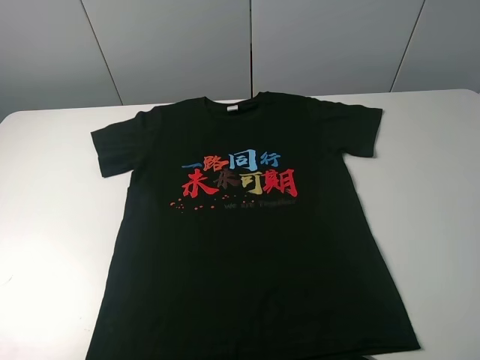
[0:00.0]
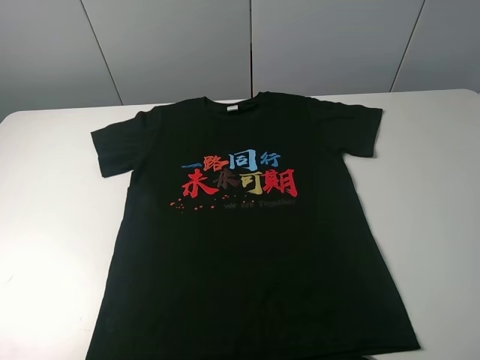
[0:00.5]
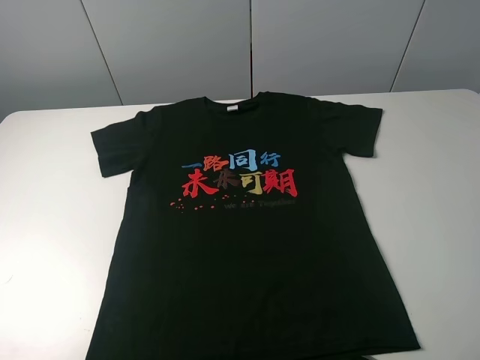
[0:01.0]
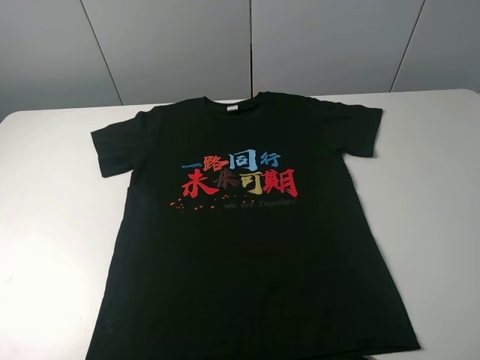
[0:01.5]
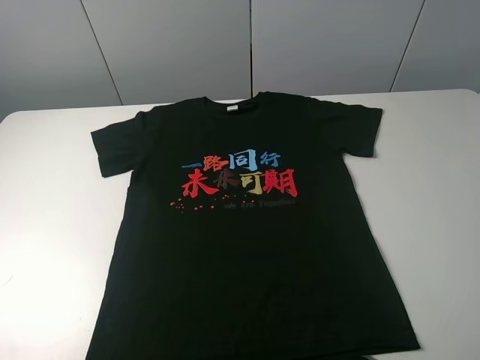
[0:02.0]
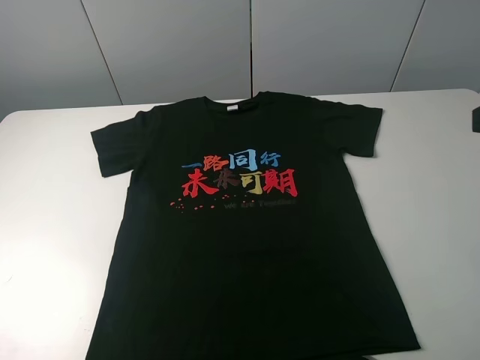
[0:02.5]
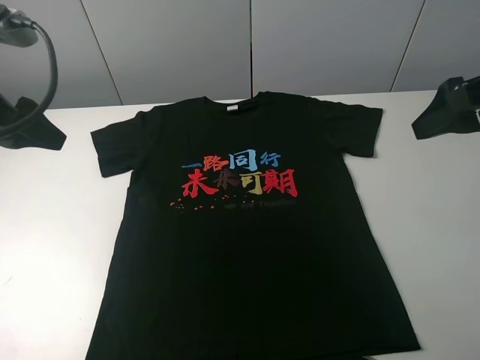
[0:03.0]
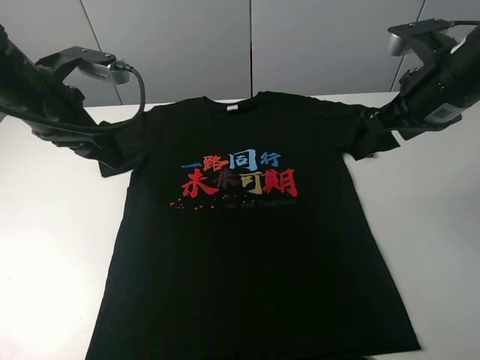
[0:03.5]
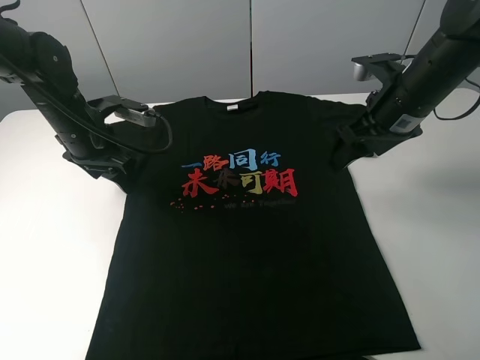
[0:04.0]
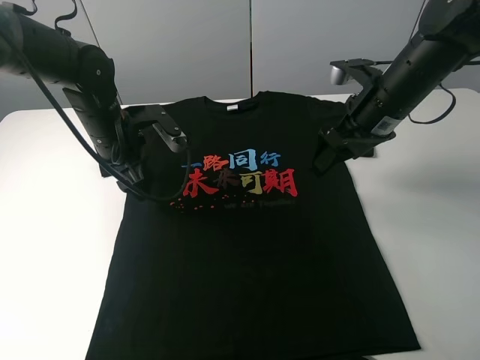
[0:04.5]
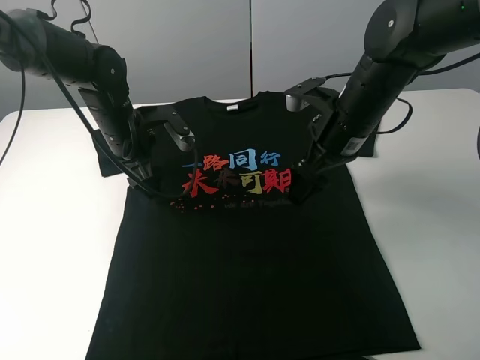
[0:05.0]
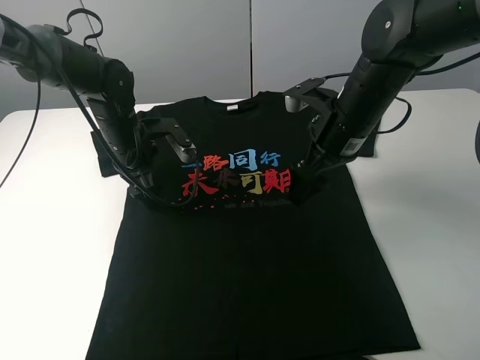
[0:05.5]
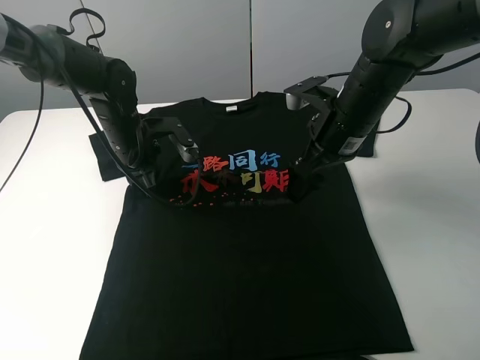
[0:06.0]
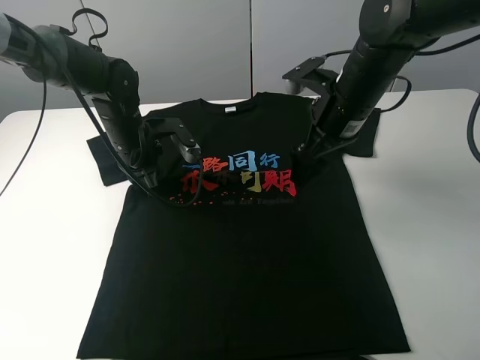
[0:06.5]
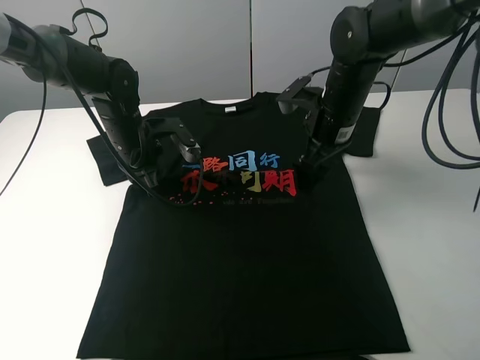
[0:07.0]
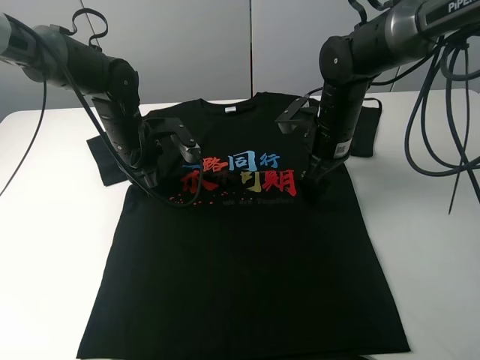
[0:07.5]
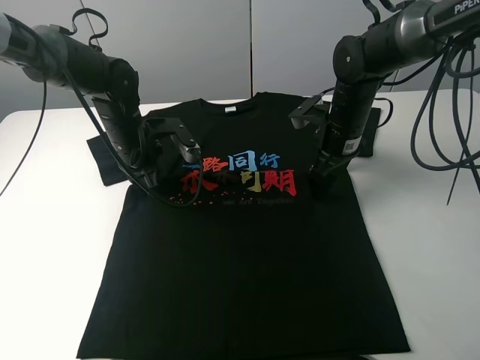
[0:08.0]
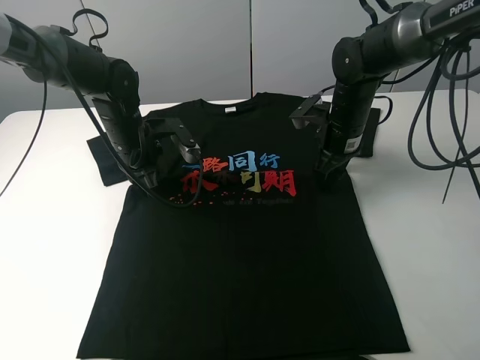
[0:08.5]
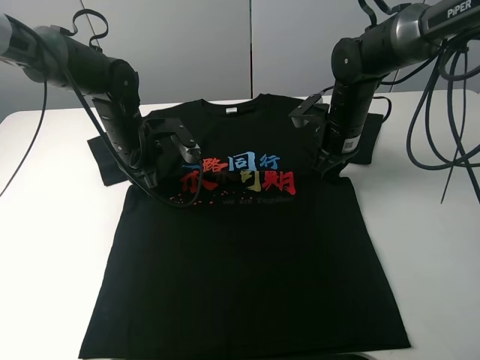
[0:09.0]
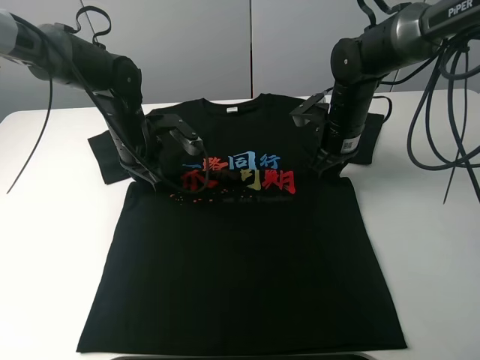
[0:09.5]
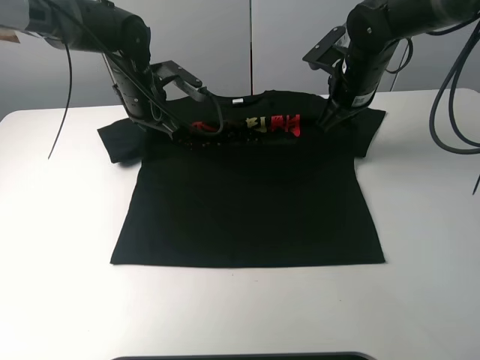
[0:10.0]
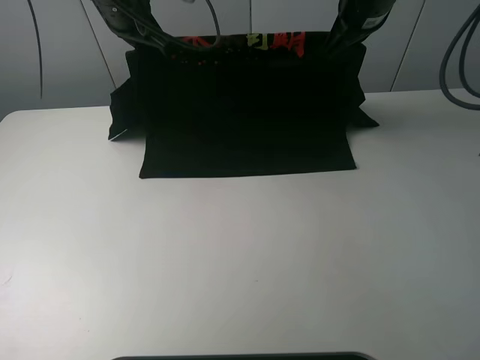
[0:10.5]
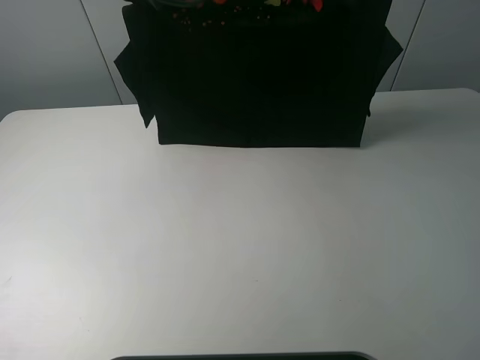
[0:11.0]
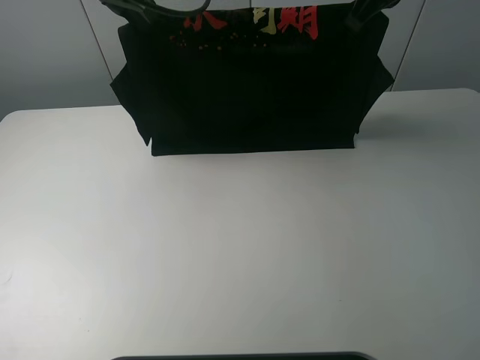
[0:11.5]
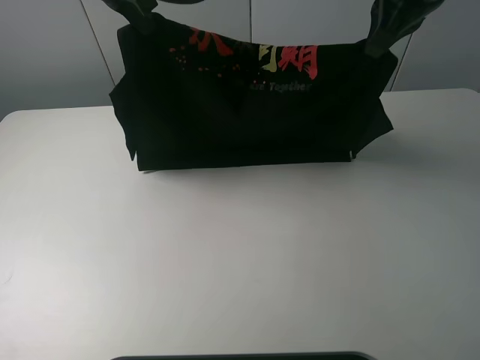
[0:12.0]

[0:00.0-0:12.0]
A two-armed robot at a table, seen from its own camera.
Task of the whole recording: fold the clothes on the table.
Step, 0.0 to 6.5 s: Lift the black T-shirt with the left gripper.
2.0 to 4.0 s: The right gripper goes roughly 30 cm forward, while the left gripper goes approximately 40 cm forward, downward and to the right.
4.0 to 6.0 s: The right gripper heads to the left, covering roughly 5 cm, while the left gripper goes roughly 5 cm to the right, and closes up.
6.0 to 8.0 s: The right gripper heads forward and downward, covering approximately 10 cm.
8.0 to 10.0 s: The left gripper travels forward and upward by some 10 cm, while the right gripper shifts some 5 cm upward, and closes its fingers.
10.0 to 12.0 s: The left gripper heads upward, covering some 20 cm. Meanwhile the right gripper heads upward and backward, covering roughly 20 cm.

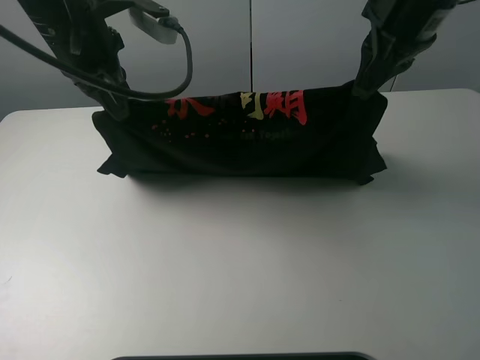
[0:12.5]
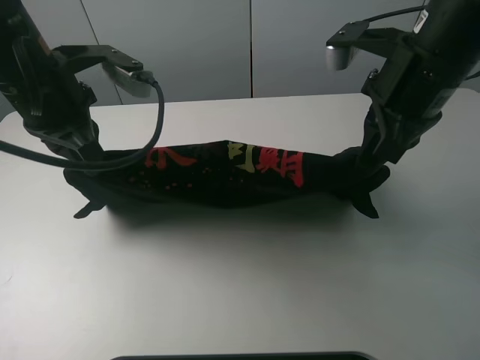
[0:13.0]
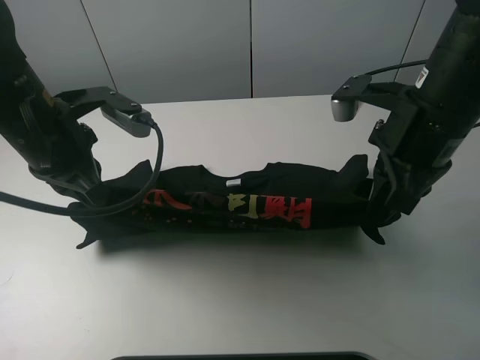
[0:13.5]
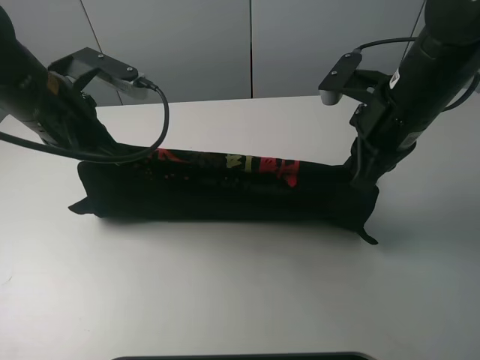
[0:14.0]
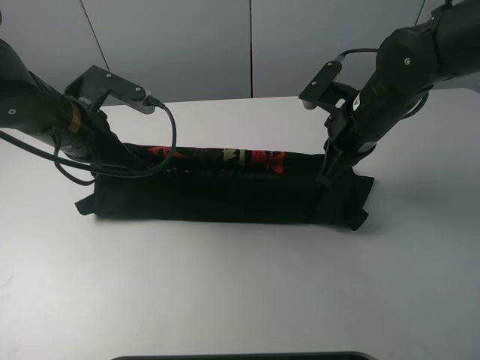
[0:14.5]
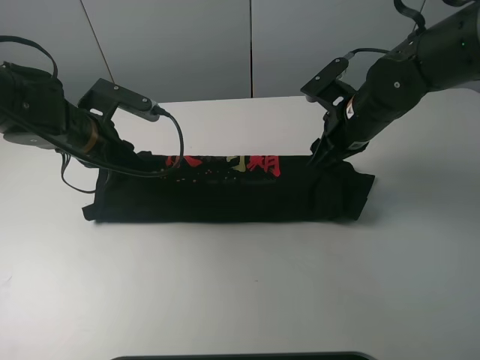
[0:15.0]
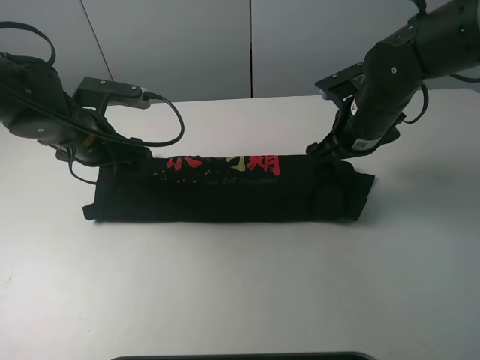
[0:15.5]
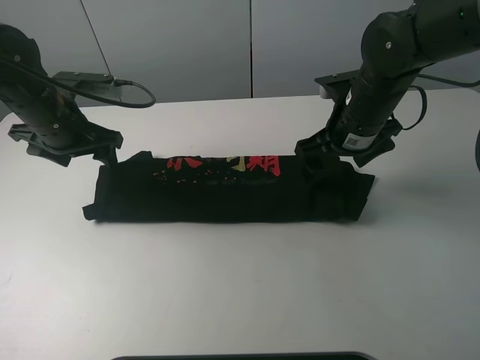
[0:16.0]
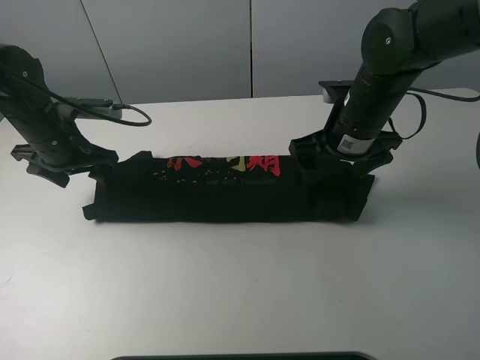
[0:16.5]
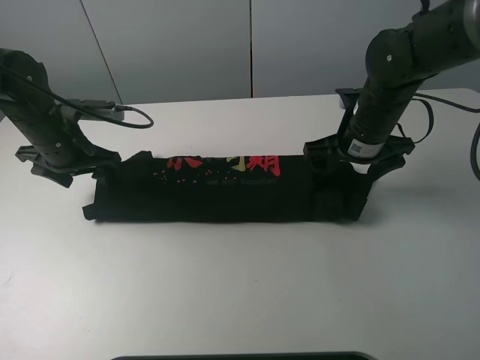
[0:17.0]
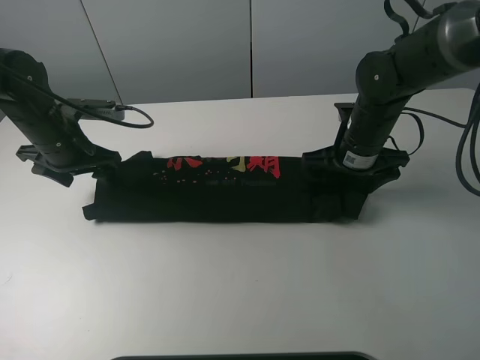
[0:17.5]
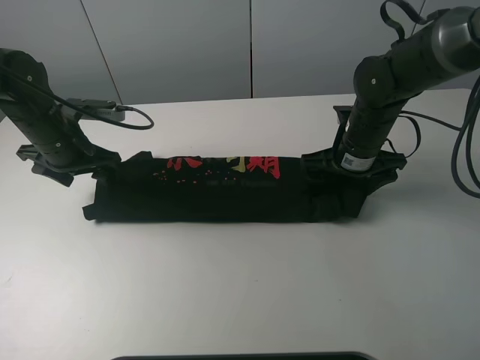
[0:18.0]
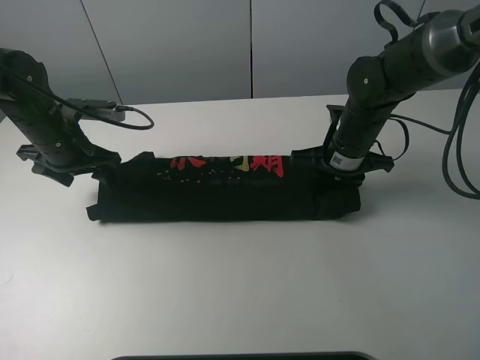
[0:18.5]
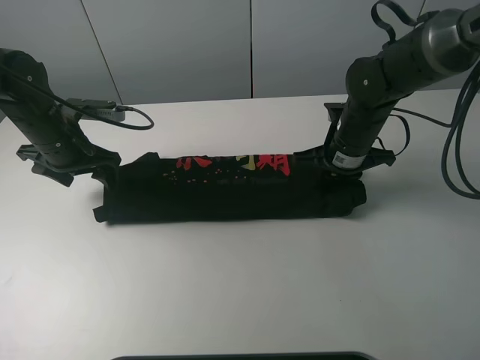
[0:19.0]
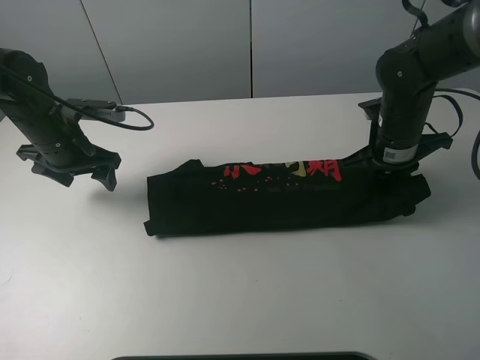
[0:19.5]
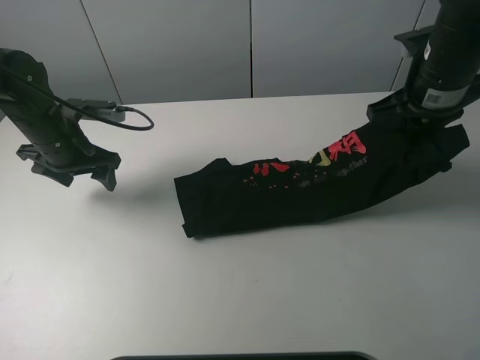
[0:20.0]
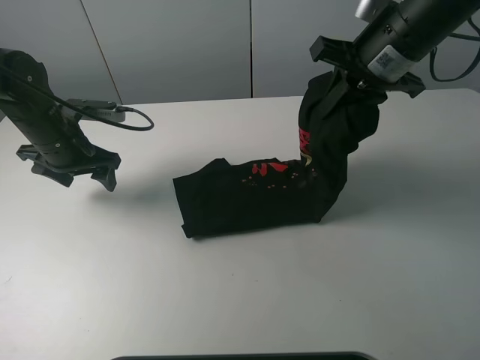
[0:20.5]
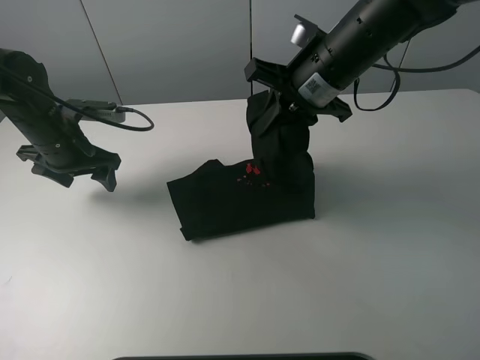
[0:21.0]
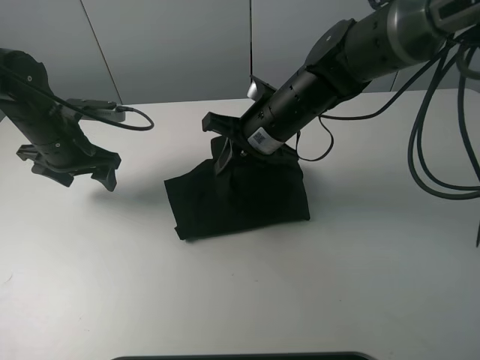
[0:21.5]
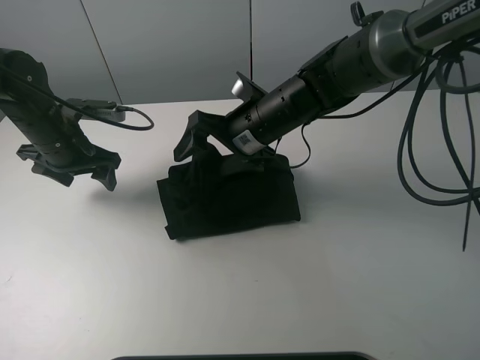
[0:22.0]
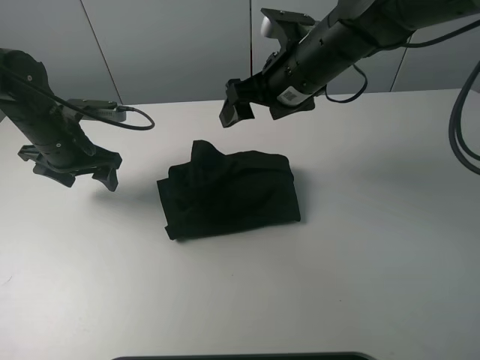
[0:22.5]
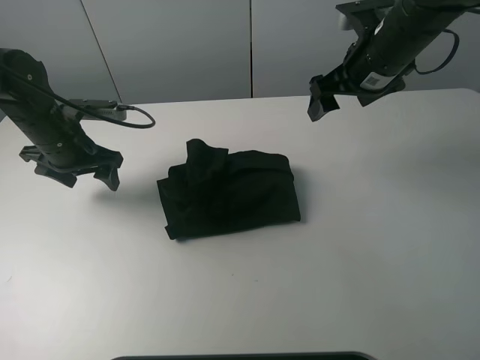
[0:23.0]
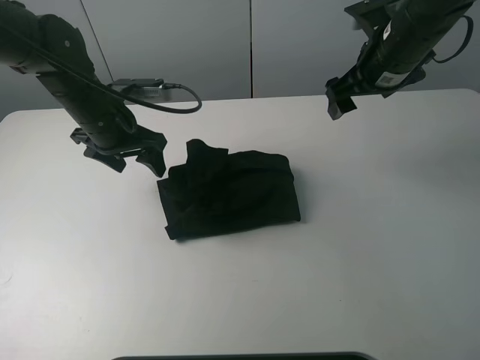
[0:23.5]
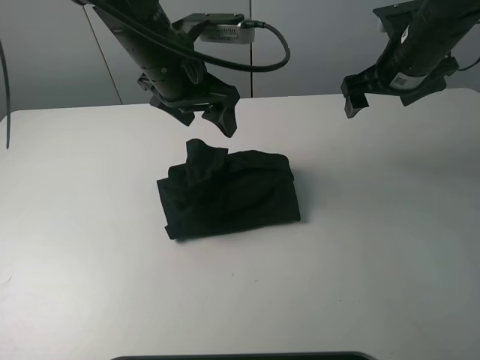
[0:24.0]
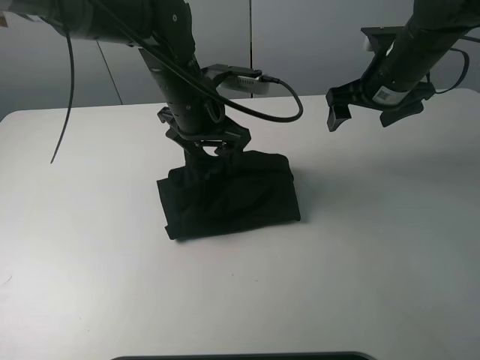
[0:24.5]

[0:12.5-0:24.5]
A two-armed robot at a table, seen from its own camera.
Task of the whole recording: fold the clothes on the table.
Step, 12.5 to 15.0 s: Fold the black T-shirt downward with the left gripper.
Step, 15.5 to 18.5 s: Grasp the black T-shirt with the right gripper.
Step, 19.0 to 22.0 s: Fold the black T-shirt from right to left with right gripper.
12.5 to 14.5 s: The grippers both shift downward by about 15 cm.
14.5 to 16.5 s: The right gripper opens. Meanwhile the left gripper heads to the left, covering about 5 cm, and opens.
16.5 to 18.5 s: The right gripper moves downward, approximately 5 cm, and closes.
18.5 to 20.5 s: The right gripper moves upward, some 15 cm.
20.5 to 22.5 s: The right gripper shifts about 10 cm to the left, and opens its fingers.
22.5 to 24.5 s: The left gripper heads to the right, covering approximately 20 cm, while the right gripper goes approximately 10 cm to the right.

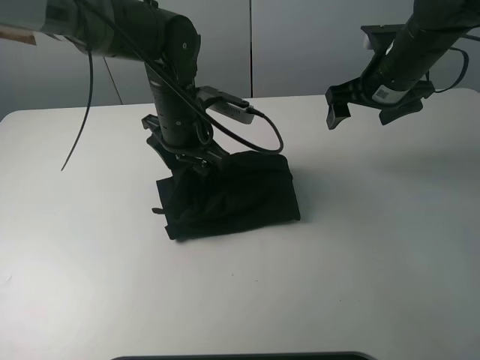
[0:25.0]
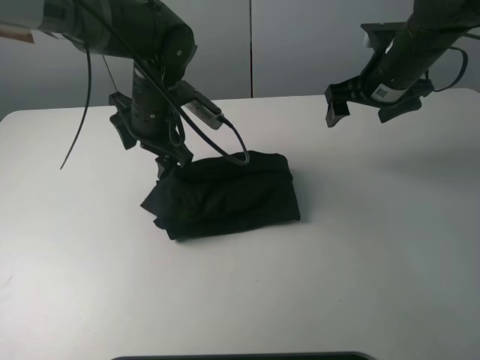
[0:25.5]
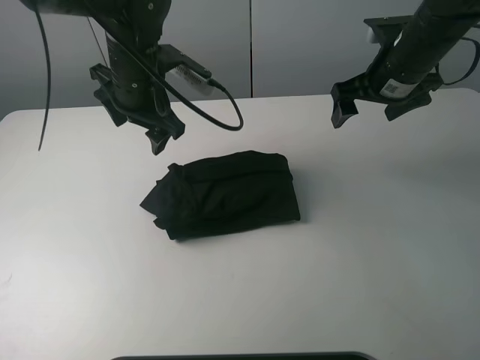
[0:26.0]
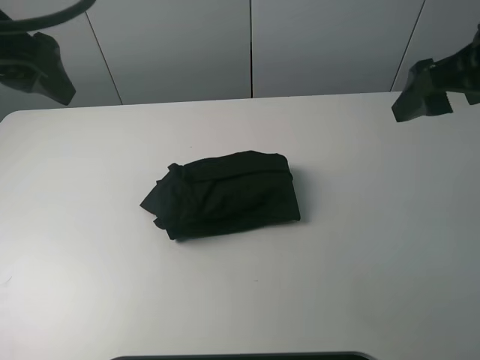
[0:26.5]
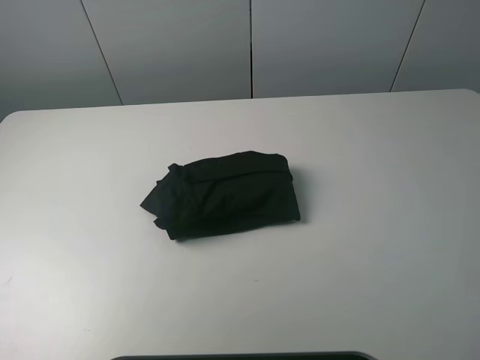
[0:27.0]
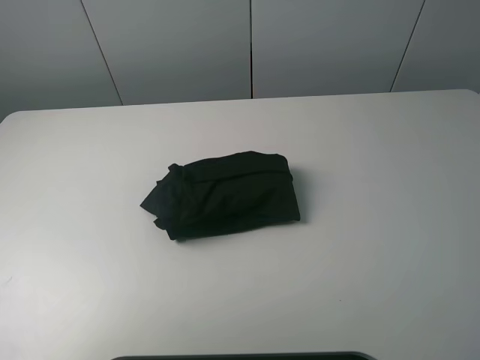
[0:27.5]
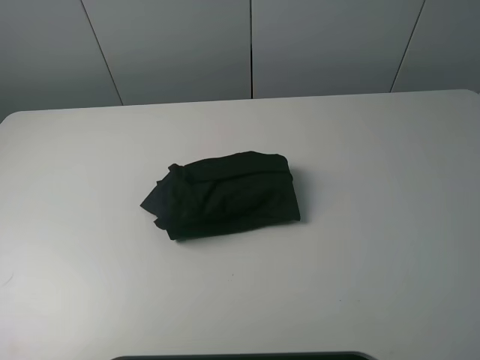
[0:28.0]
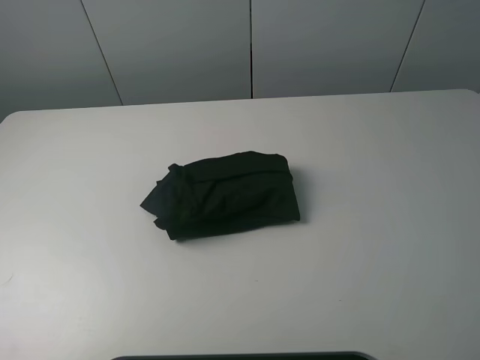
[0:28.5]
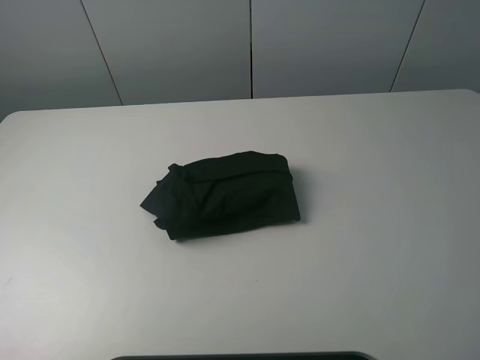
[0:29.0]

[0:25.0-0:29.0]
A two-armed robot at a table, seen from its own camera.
Task of the whole recording: fold the clothes on the table.
25.0 to 27.0 s: The left gripper goes some 35 cm to the left, backward and upward; the right gripper travels backward and upward by approximately 30 cm.
